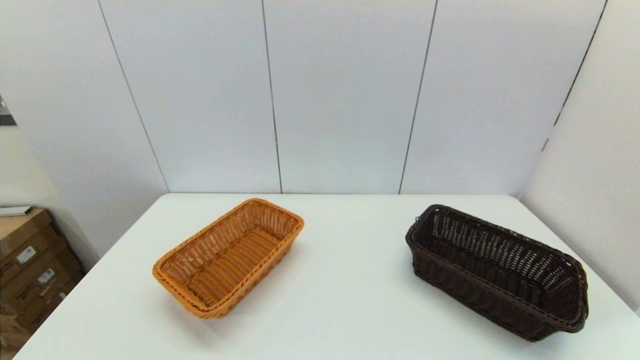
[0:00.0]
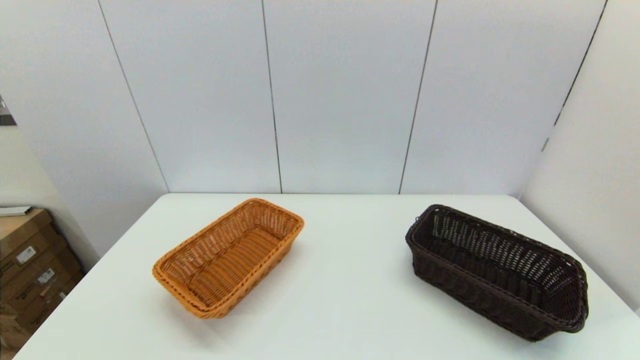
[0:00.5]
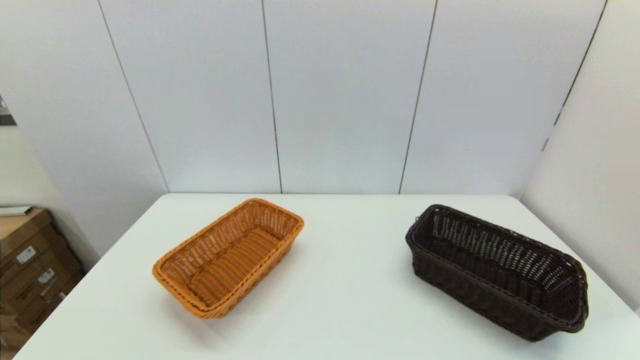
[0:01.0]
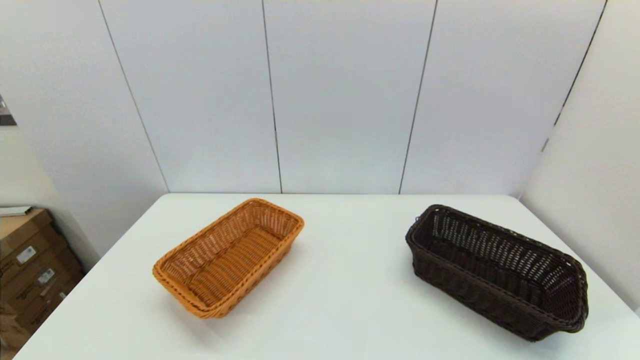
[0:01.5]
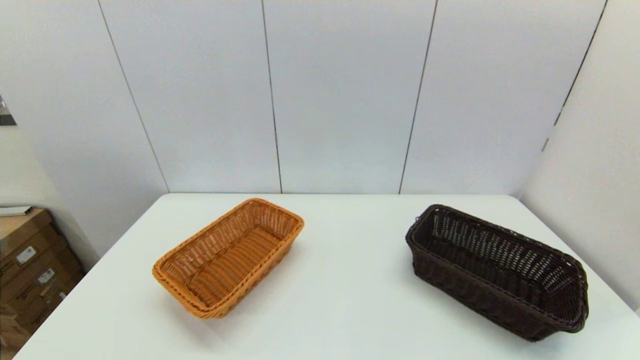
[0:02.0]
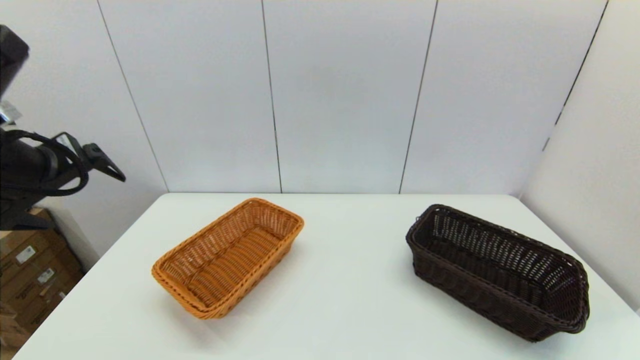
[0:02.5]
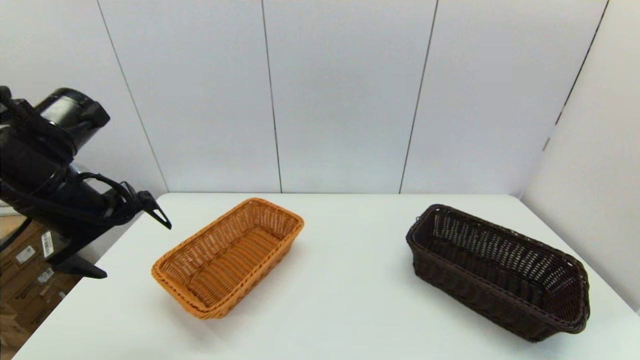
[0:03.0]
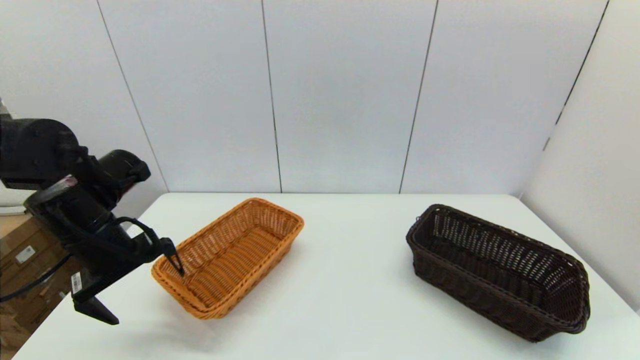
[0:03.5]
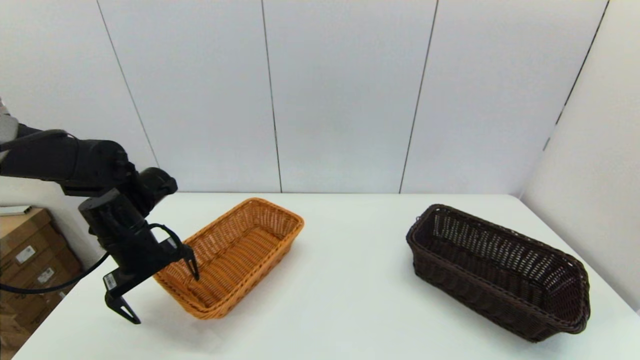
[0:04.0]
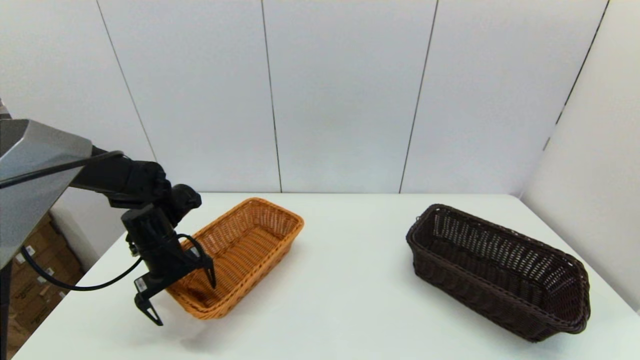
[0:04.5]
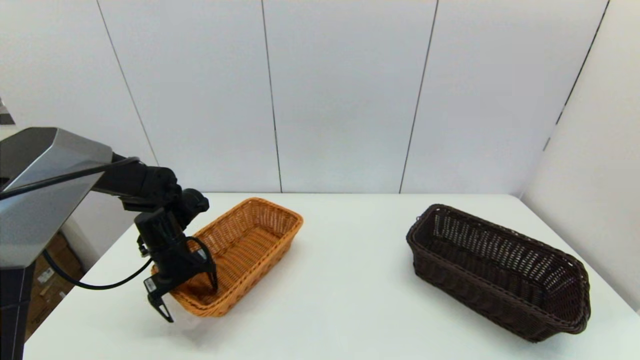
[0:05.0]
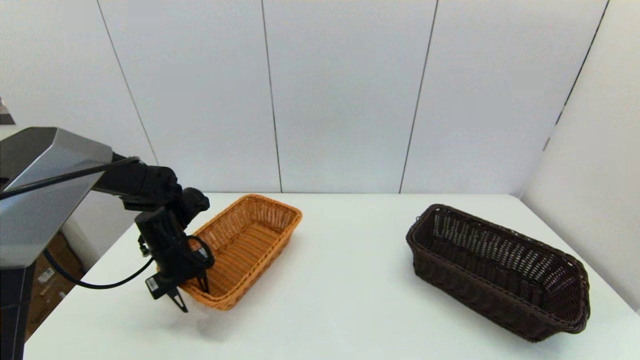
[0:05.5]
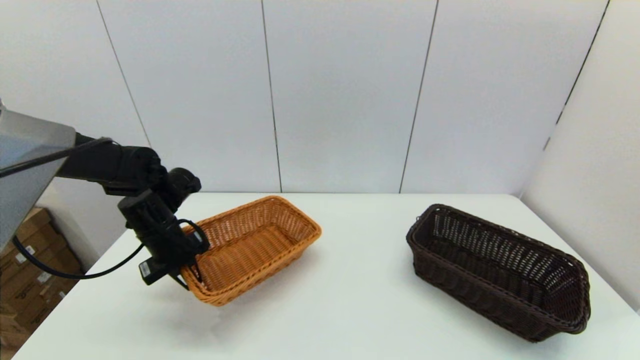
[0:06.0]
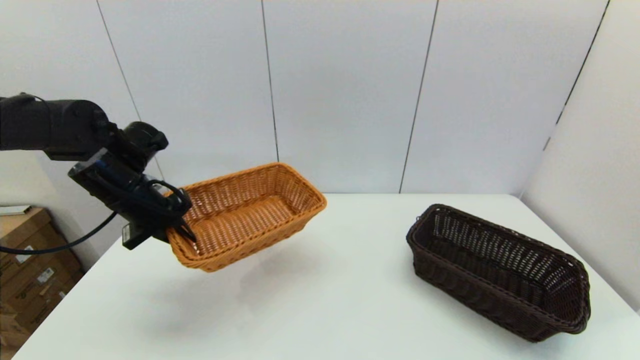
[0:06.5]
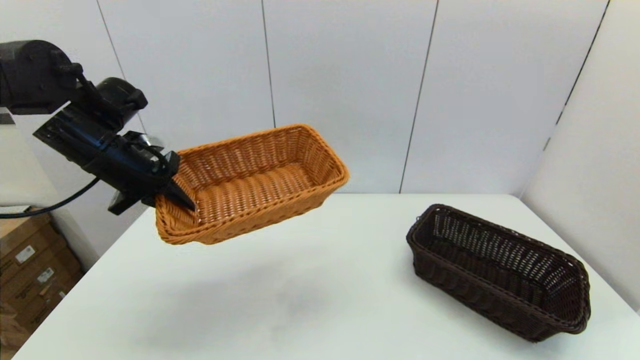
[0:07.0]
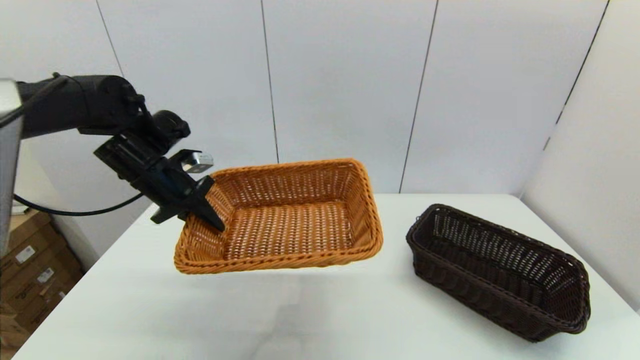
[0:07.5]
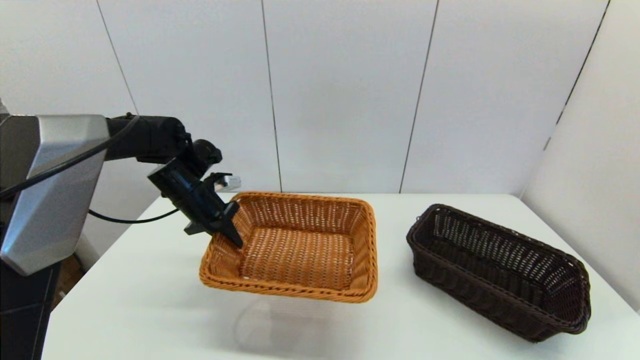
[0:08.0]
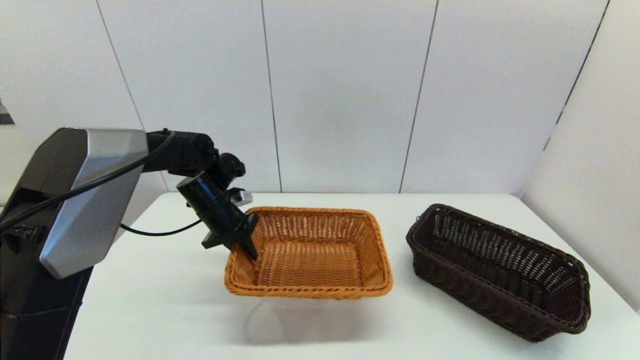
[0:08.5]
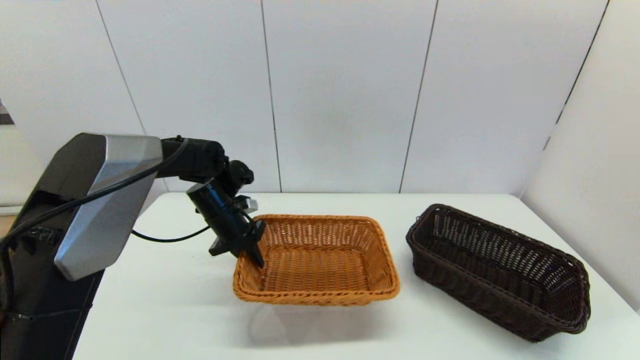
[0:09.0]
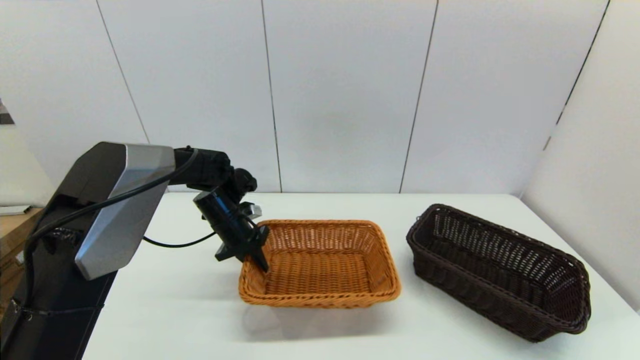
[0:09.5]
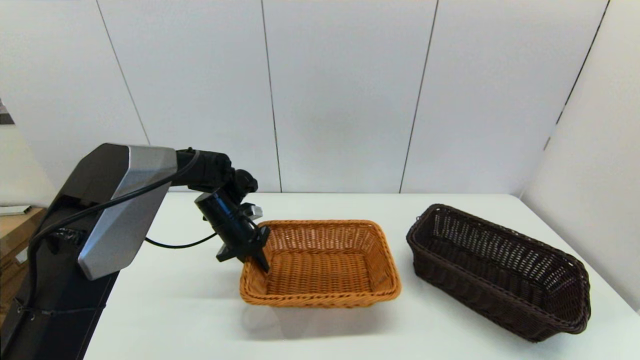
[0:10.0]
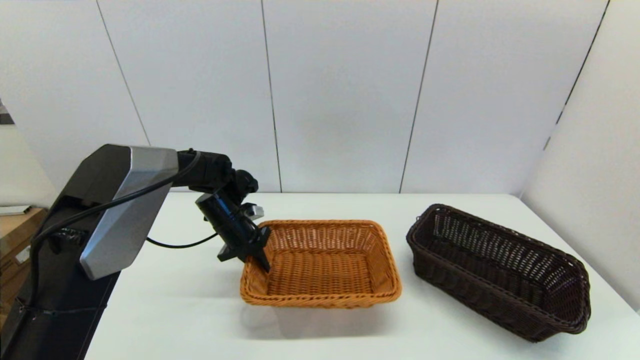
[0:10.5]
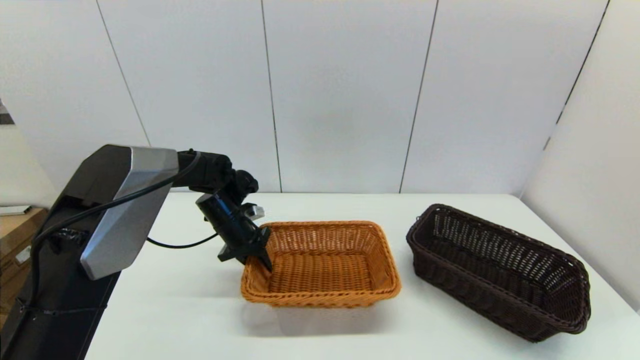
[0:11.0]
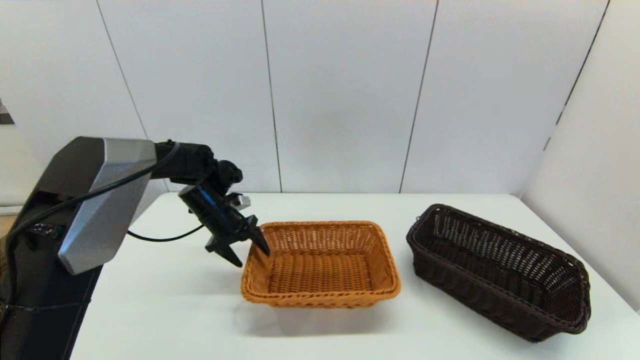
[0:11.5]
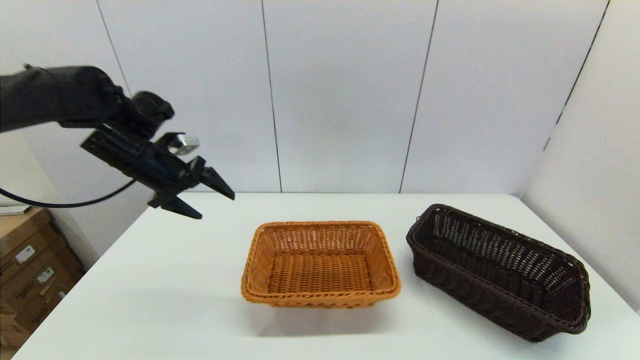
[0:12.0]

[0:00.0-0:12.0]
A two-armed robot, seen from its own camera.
Task of the whole recording: stack a basket on top of another basket.
Step, 0:02.5 to 0:05.5: Grasp the light basket with the left gripper.
0:02.0 to 0:04.0: The left gripper moves downward and forward, approximately 30 cm.
0:04.0 to 0:06.0: The left gripper closes.
0:06.0 to 0:08.0: The left gripper shifts approximately 5 cm forward, and travels upward and back again, roughly 15 cm each way.
0:08.0 to 0:10.0: The left gripper shifts approximately 5 cm downward.
0:10.0 to 0:12.0: The left gripper travels upward and to the left by about 20 cm, and opens its fingers.

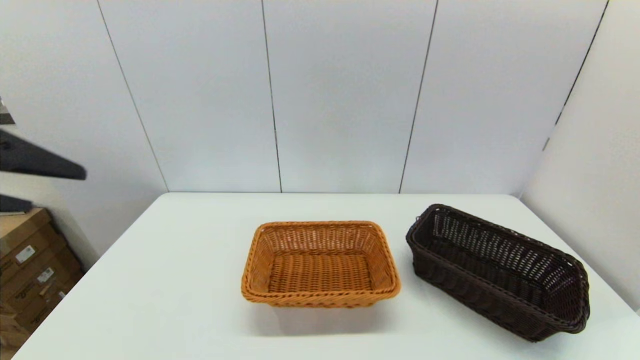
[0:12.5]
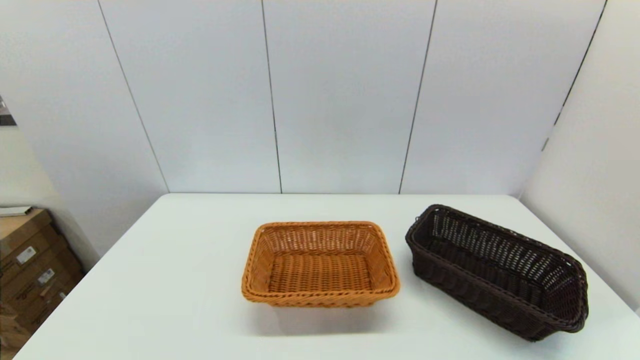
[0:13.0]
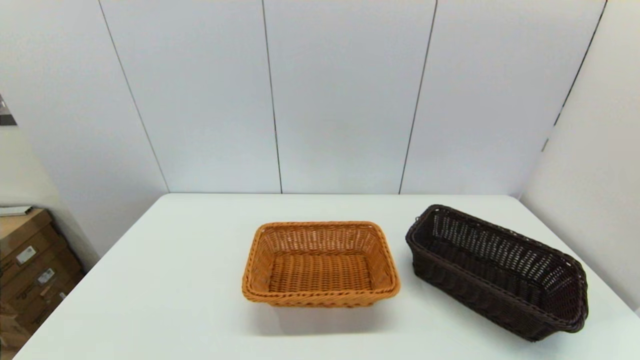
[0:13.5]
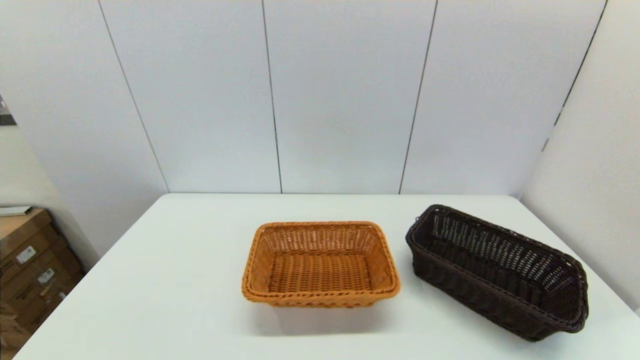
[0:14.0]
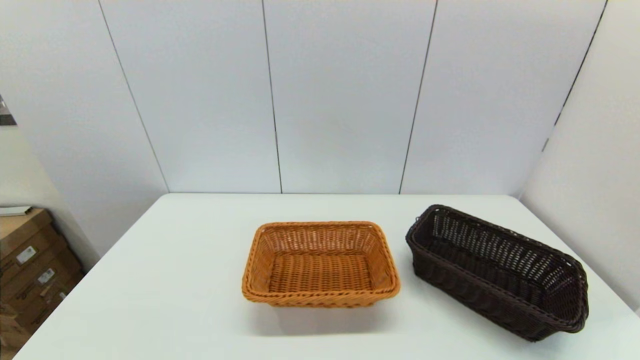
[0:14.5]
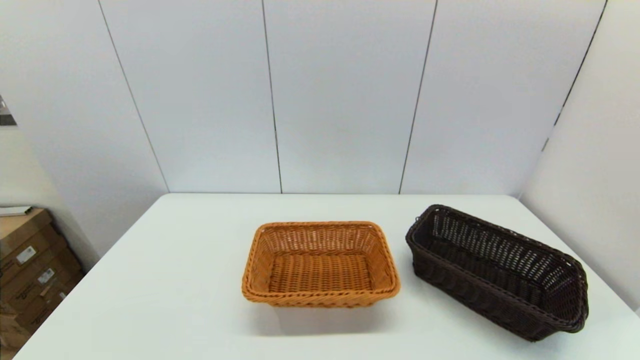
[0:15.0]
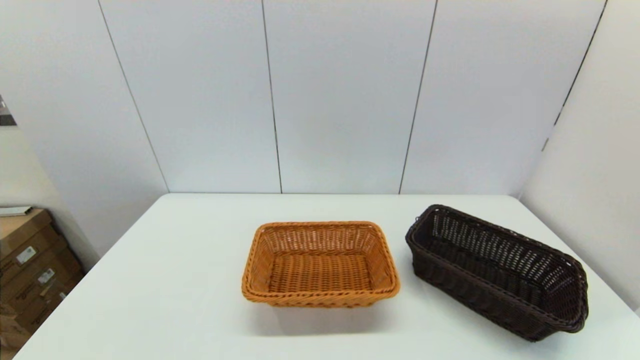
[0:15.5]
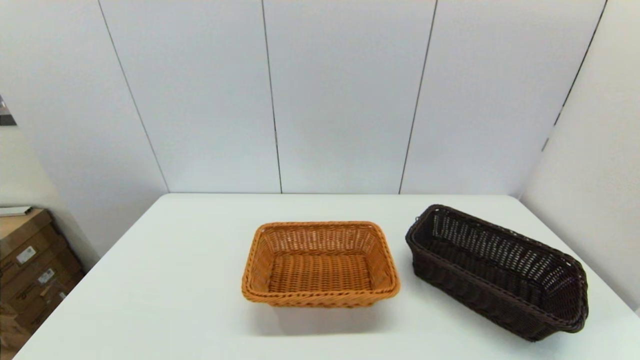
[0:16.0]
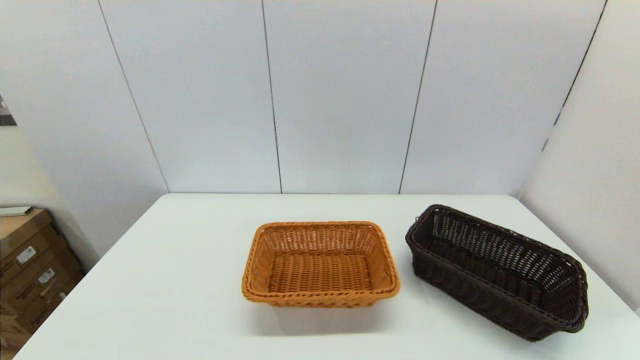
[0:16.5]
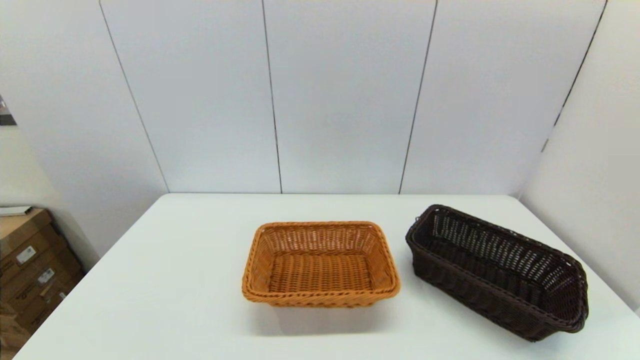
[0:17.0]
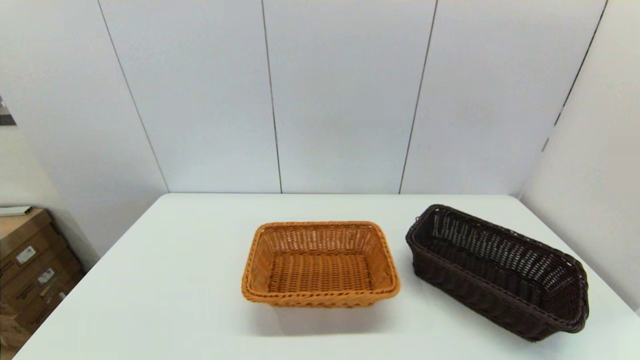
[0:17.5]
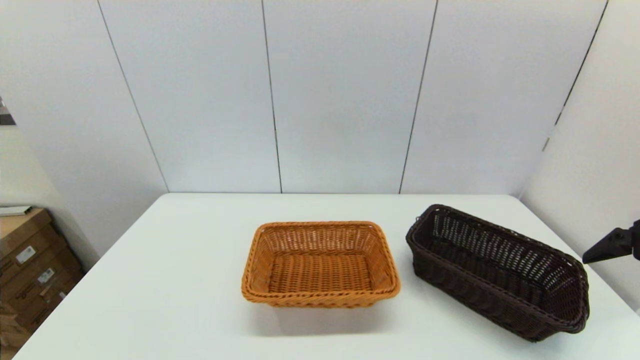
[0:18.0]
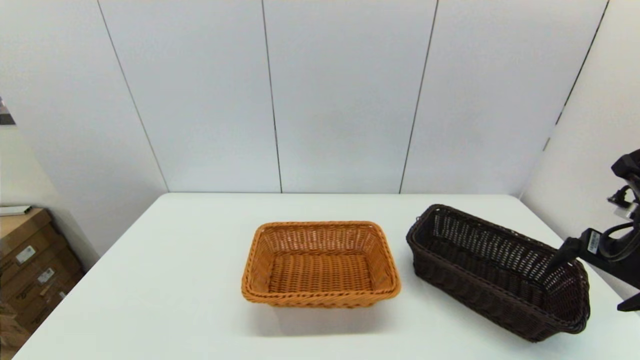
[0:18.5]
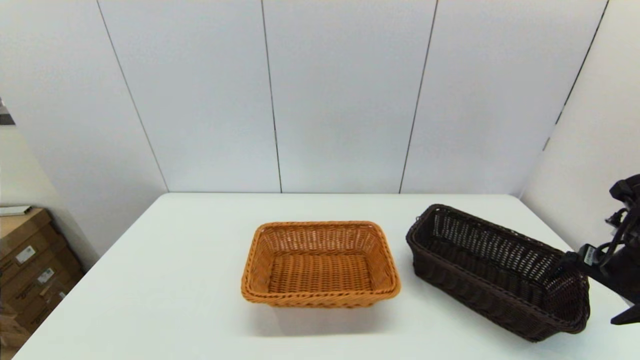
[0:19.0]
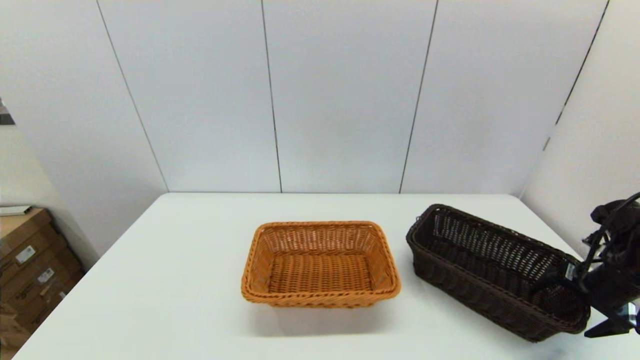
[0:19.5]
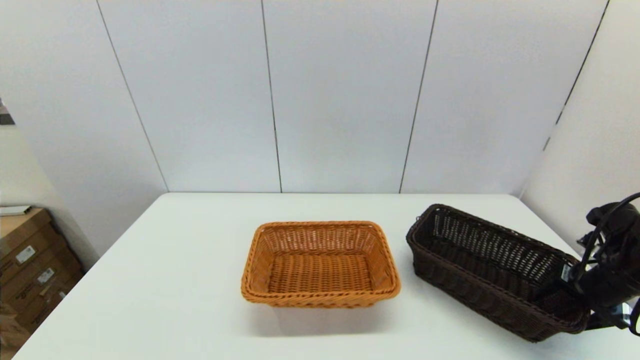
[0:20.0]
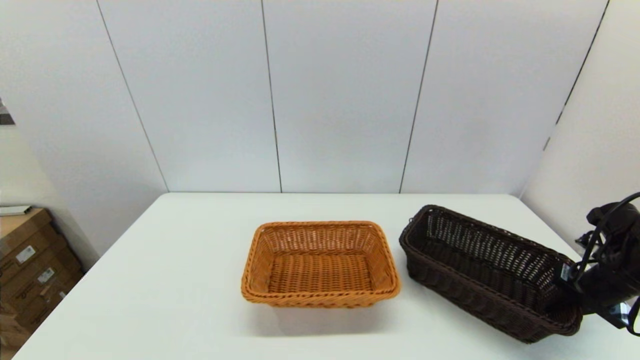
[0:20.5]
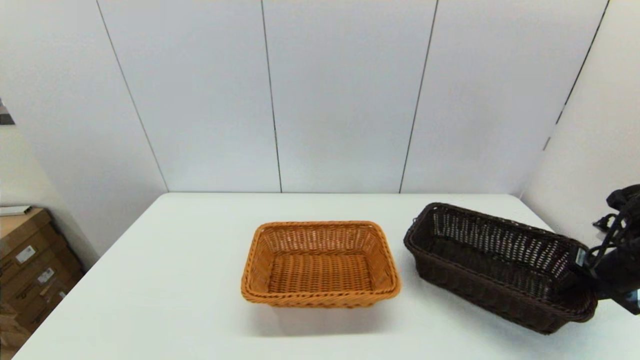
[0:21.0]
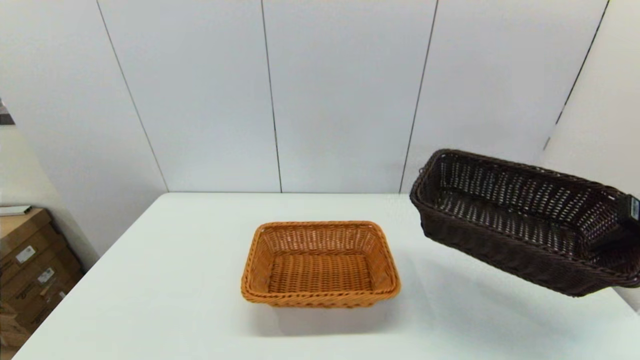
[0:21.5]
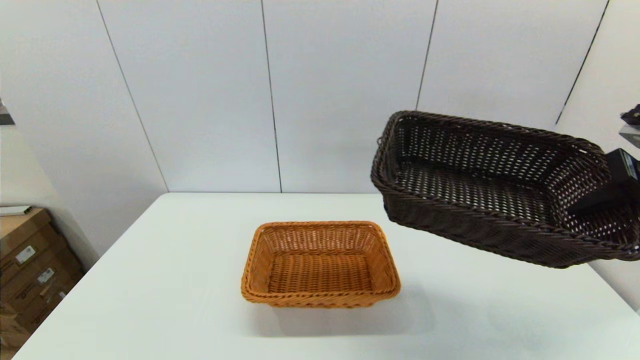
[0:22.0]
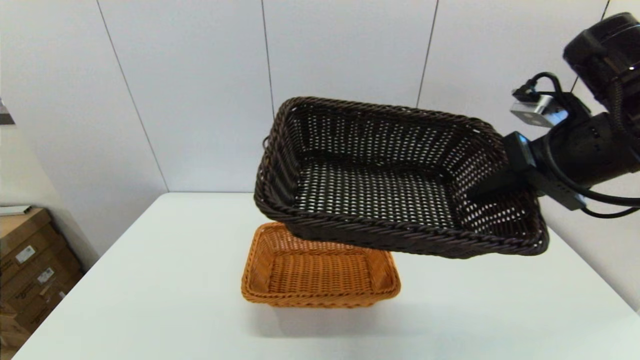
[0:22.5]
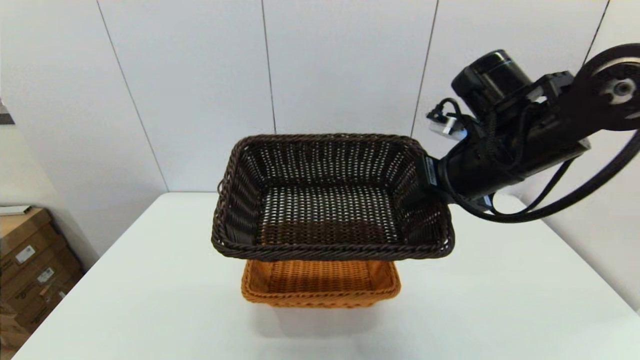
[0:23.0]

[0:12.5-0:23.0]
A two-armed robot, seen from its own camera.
Task of the whole recording: stack a basket on top of another basket.
Step, 0:12.5 to 0:20.5: Grasp the dark basket with the right gripper.
0:12.5 to 0:14.5: The left gripper travels downward and backward by about 30 cm.
0:16.5 to 0:19.0: The right gripper shifts approximately 30 cm forward.
0:19.0 to 0:21.0: The right gripper closes.
0:21.0 to 0:23.0: The right gripper heads to the left and upward, covering roughly 30 cm.
